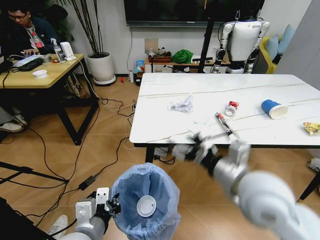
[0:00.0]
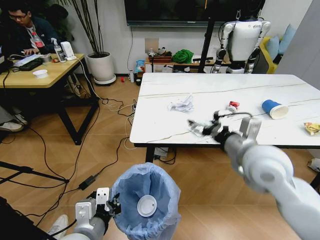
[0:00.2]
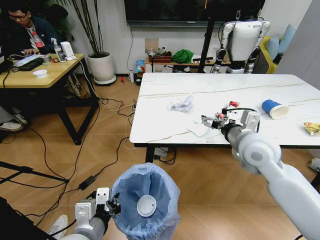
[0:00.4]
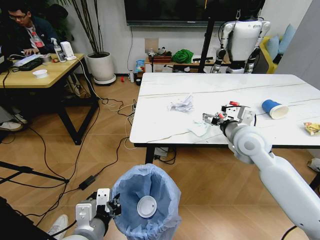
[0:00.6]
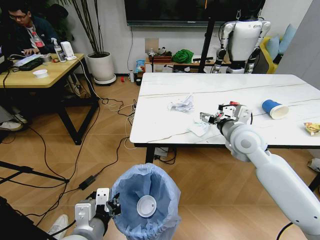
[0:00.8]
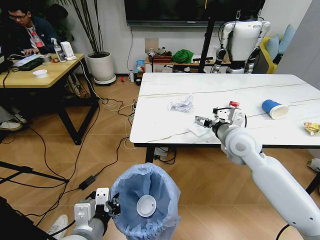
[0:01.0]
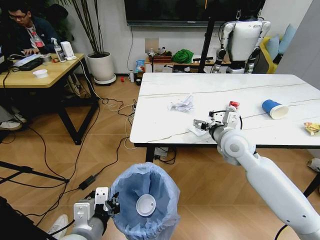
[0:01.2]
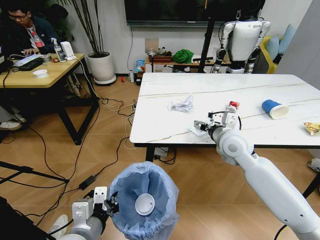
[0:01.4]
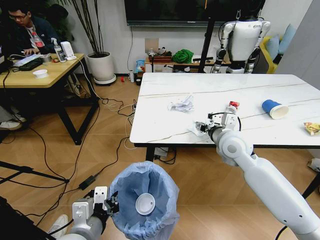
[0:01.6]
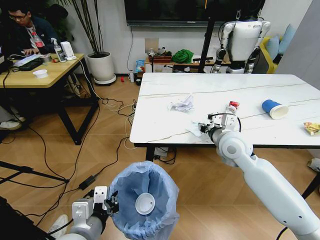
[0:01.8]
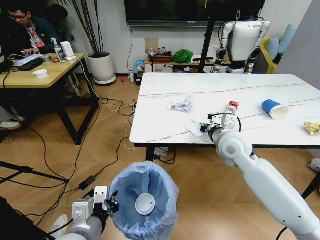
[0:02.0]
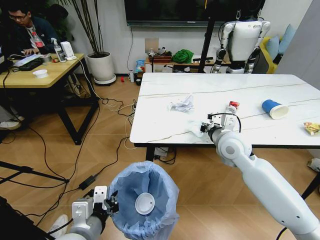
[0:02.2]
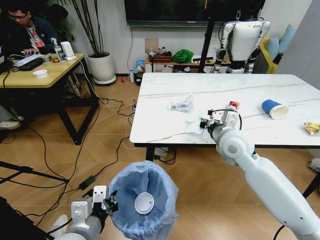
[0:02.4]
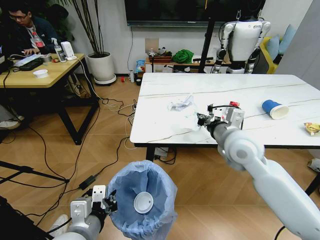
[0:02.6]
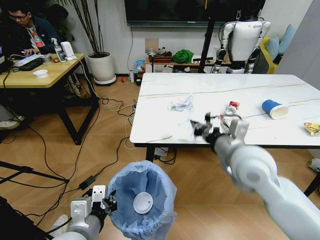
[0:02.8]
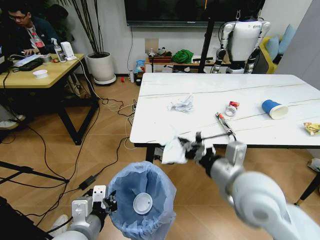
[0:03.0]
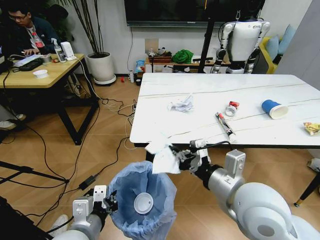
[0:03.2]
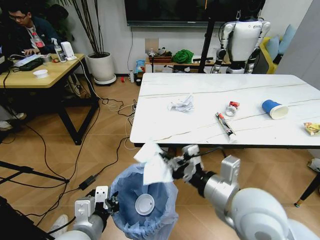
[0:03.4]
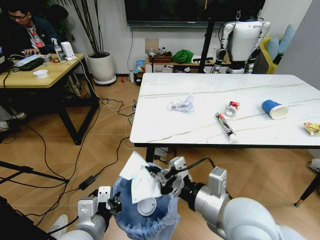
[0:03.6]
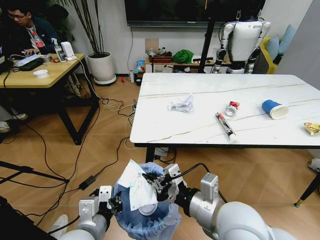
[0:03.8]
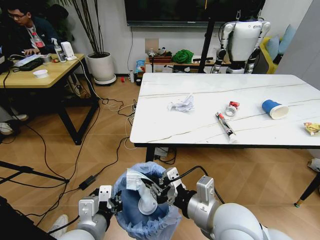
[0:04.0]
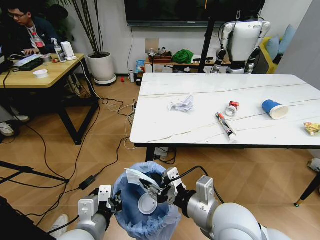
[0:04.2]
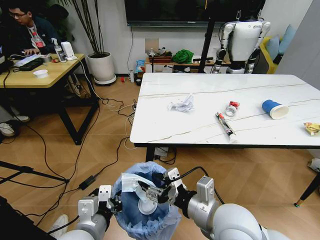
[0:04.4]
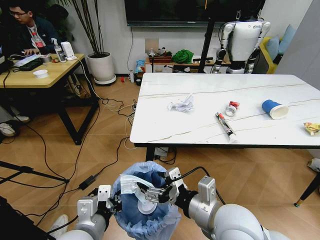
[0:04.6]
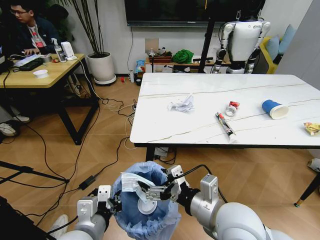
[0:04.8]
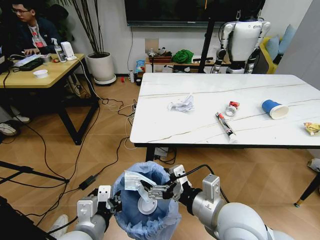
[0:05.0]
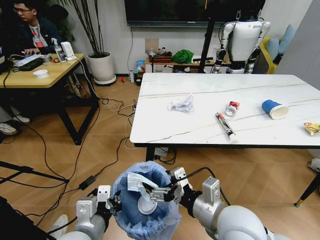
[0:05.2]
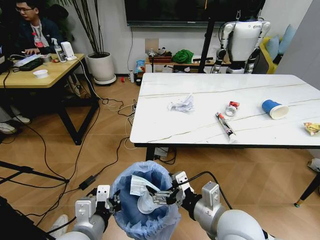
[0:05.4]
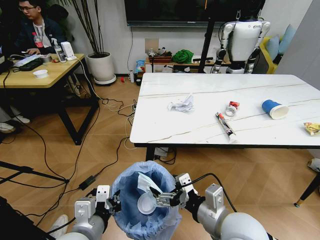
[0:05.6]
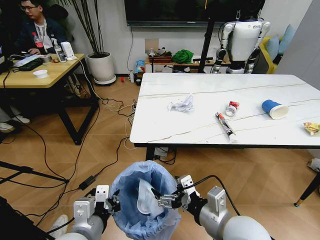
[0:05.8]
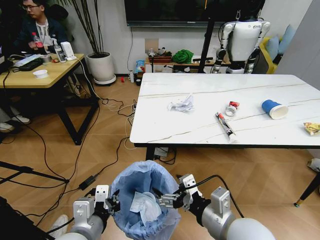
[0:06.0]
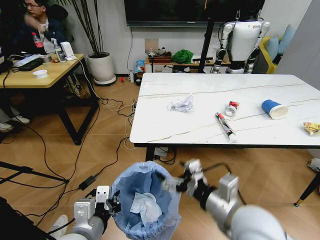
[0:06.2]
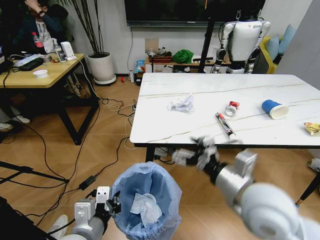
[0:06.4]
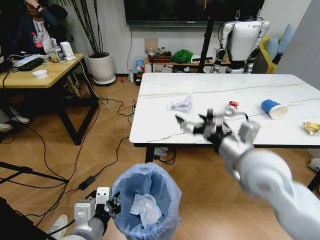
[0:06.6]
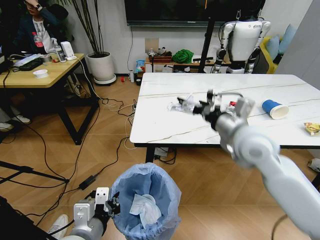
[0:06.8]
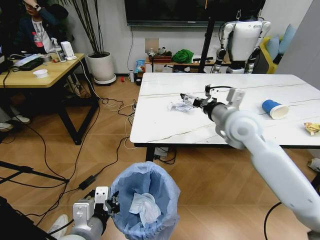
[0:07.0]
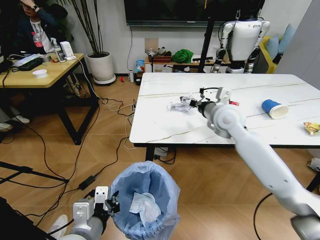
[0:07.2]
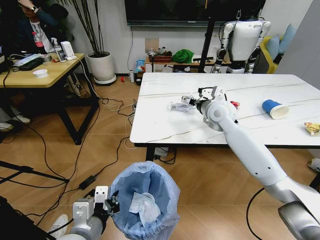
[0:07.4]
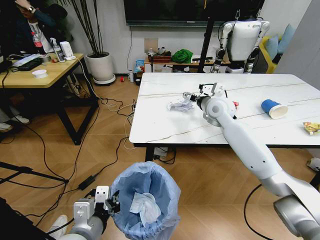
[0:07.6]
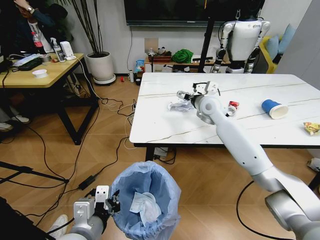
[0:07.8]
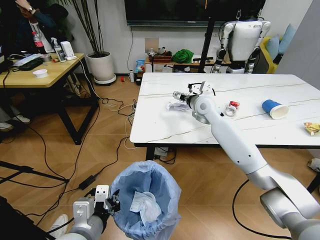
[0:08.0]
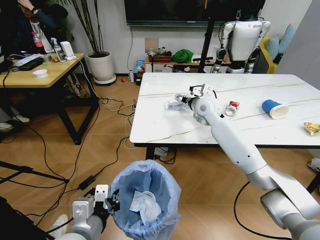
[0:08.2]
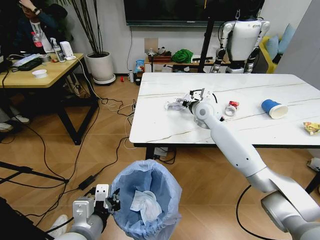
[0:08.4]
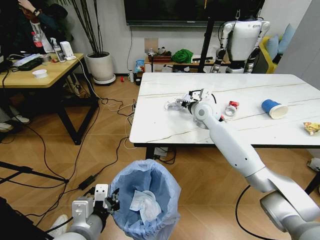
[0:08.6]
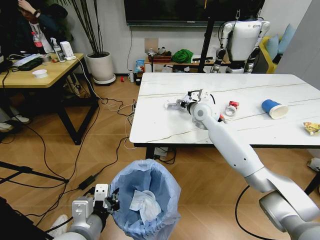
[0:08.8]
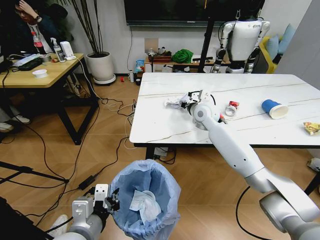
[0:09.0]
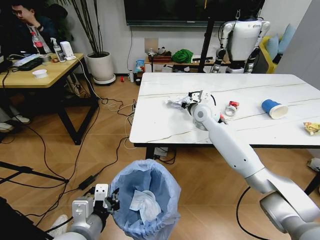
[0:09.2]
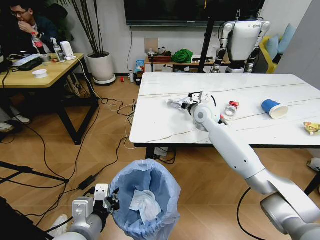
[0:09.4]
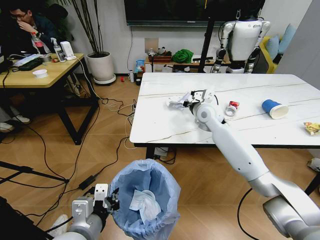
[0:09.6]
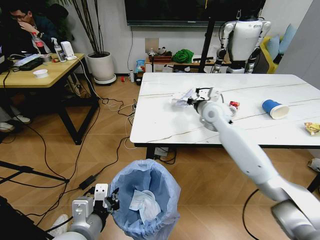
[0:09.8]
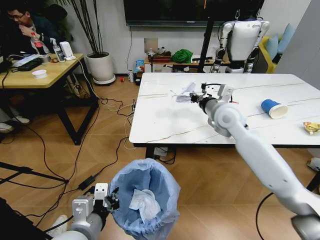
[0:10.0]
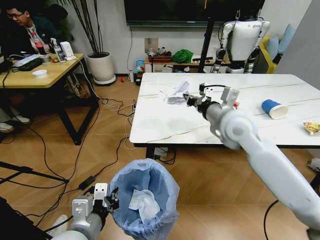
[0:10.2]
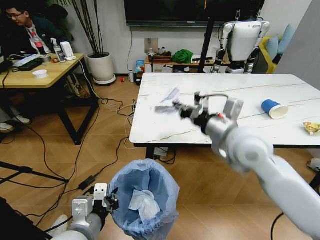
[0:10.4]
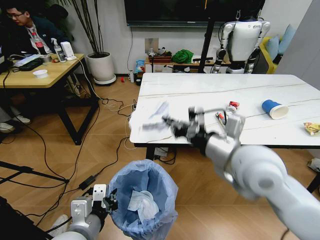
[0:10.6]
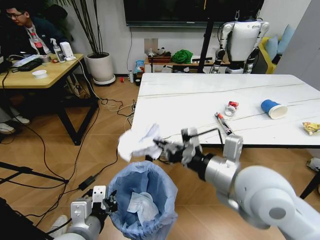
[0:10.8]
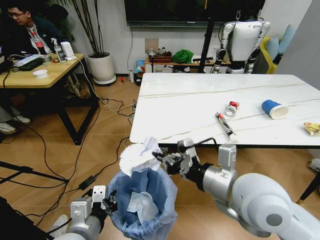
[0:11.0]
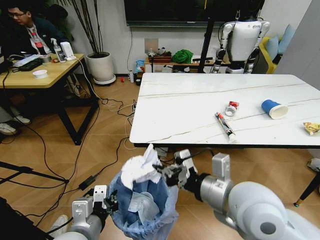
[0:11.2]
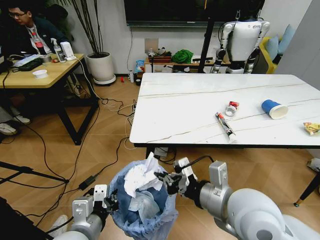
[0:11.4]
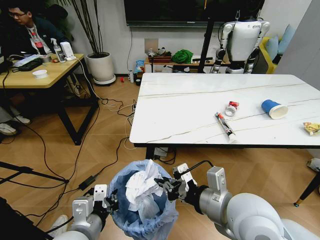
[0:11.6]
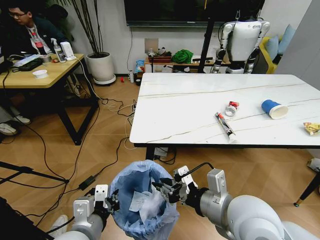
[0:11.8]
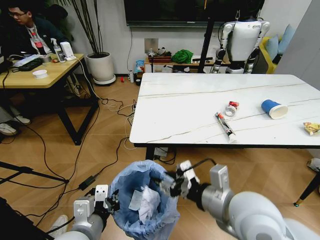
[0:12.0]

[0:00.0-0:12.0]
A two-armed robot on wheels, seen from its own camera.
Task of the whole recording: Pick up the trash bin and place the trash from the table into it.
0:00.0 to 0:01.6: The right gripper is displaced forward by roughly 15 cm.
0:01.6 to 0:03.0: The right gripper goes approximately 15 cm backward, and closes.
0:03.0 to 0:04.4: The right gripper heads downward, covering approximately 5 cm, and opens.
0:04.4 to 0:06.0: The right gripper opens.
0:06.0 to 0:07.6: The right gripper moves forward, about 35 cm.
0:07.6 to 0:09.0: The right gripper ends up about 5 cm from where it was, and closes.
0:09.0 to 0:10.4: The right gripper travels backward and upward by about 25 cm, and closes its fingers.
0:10.4 to 0:12.0: The right gripper moves backward and downward, roughly 15 cm, and opens its fingers.

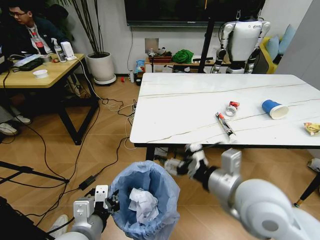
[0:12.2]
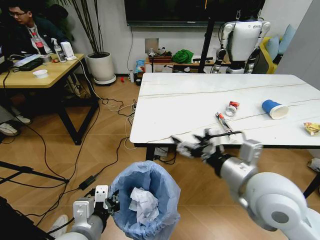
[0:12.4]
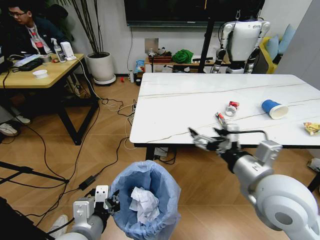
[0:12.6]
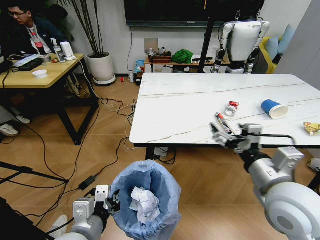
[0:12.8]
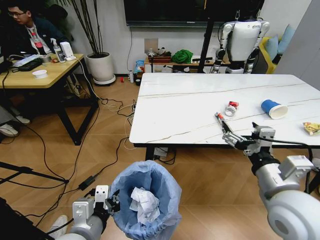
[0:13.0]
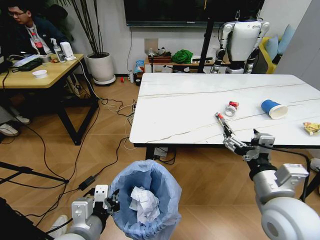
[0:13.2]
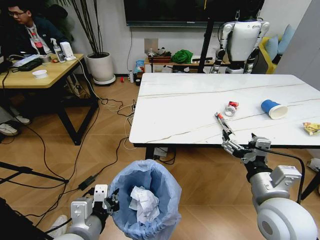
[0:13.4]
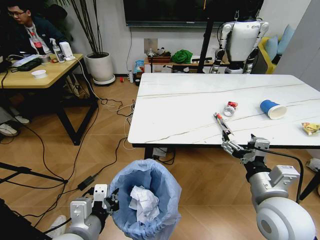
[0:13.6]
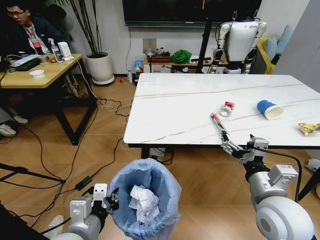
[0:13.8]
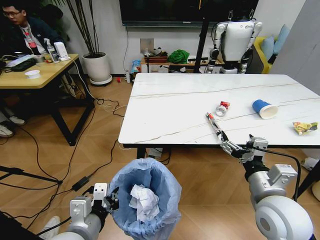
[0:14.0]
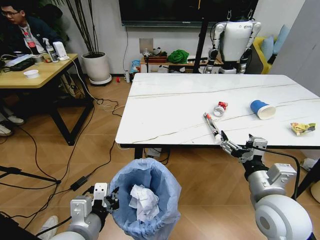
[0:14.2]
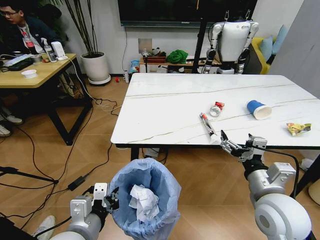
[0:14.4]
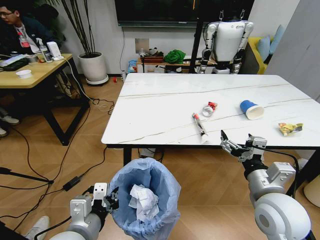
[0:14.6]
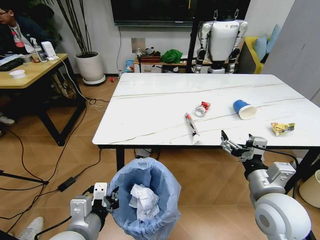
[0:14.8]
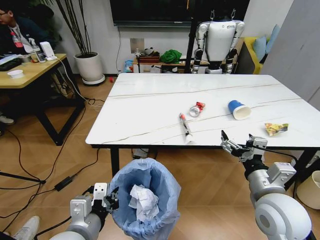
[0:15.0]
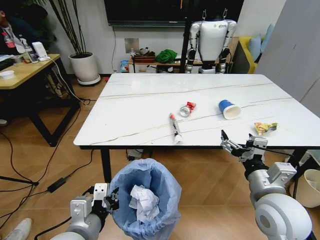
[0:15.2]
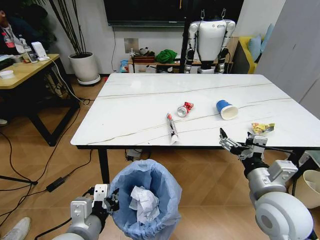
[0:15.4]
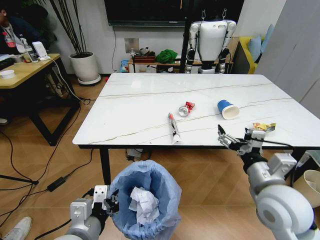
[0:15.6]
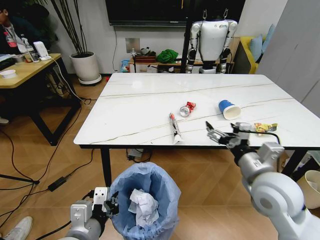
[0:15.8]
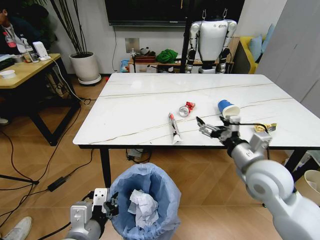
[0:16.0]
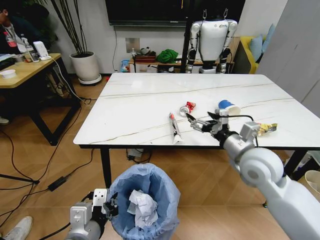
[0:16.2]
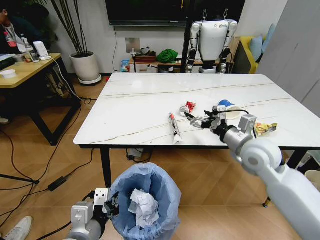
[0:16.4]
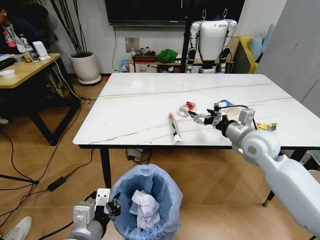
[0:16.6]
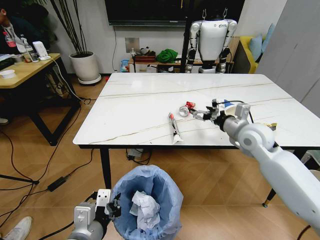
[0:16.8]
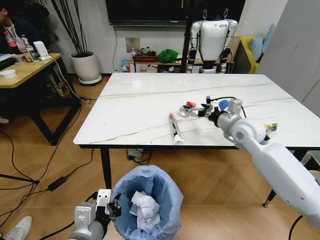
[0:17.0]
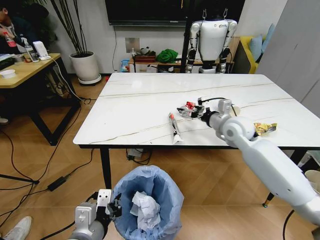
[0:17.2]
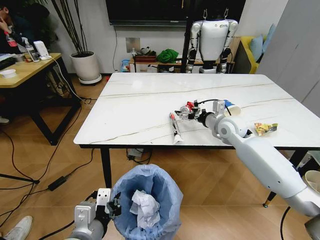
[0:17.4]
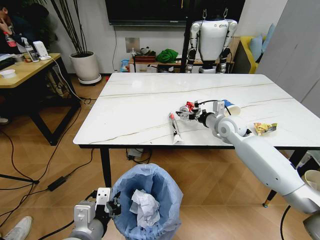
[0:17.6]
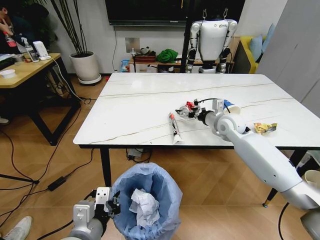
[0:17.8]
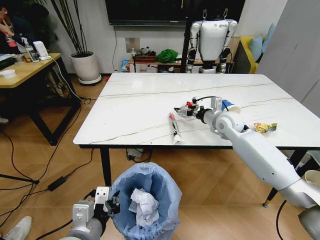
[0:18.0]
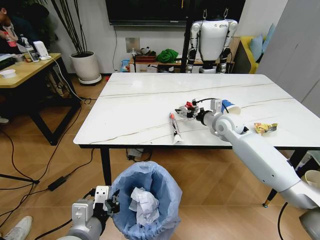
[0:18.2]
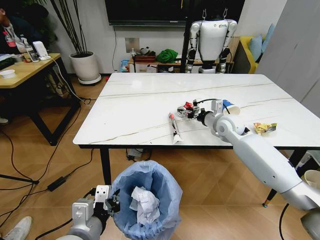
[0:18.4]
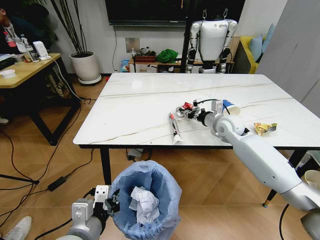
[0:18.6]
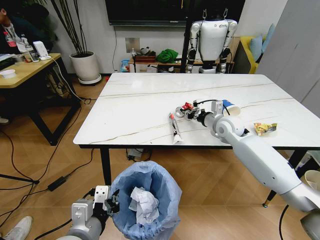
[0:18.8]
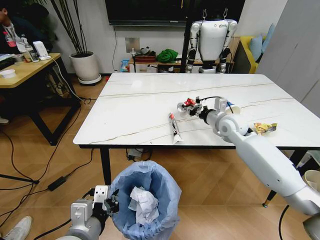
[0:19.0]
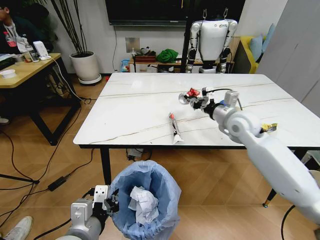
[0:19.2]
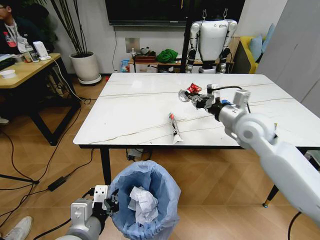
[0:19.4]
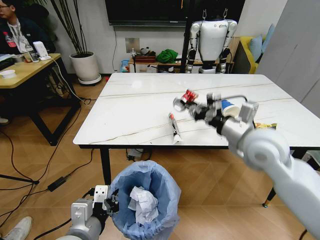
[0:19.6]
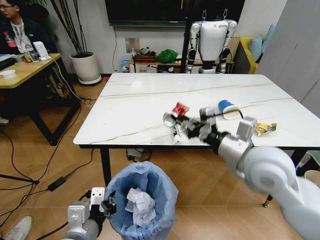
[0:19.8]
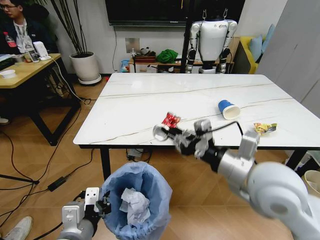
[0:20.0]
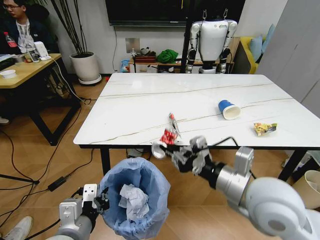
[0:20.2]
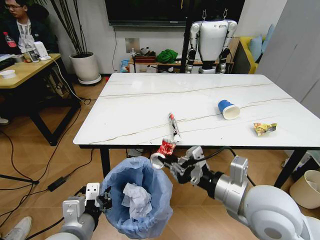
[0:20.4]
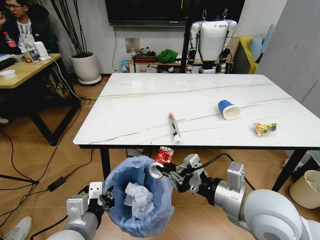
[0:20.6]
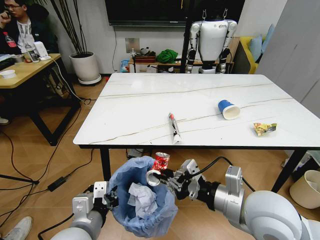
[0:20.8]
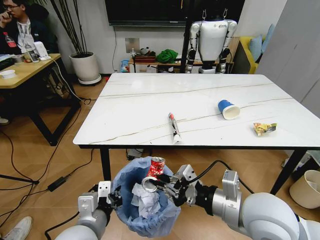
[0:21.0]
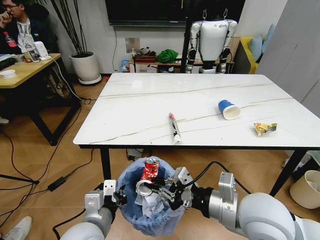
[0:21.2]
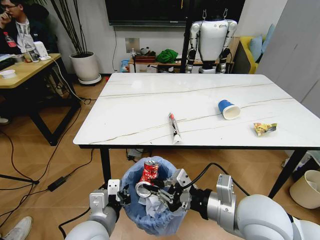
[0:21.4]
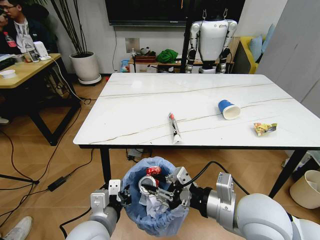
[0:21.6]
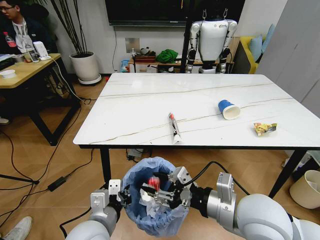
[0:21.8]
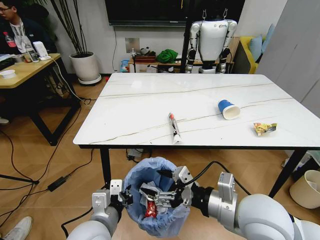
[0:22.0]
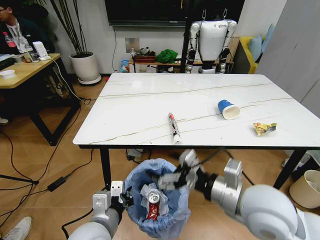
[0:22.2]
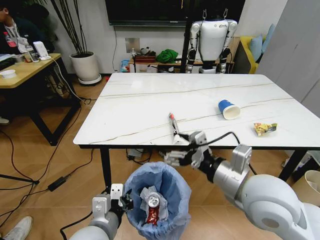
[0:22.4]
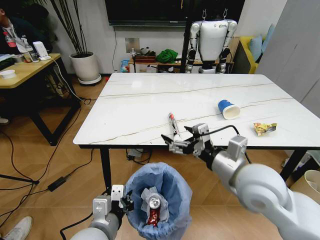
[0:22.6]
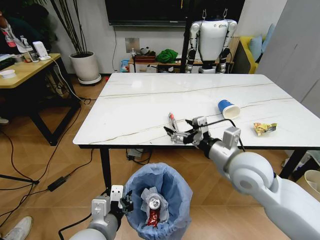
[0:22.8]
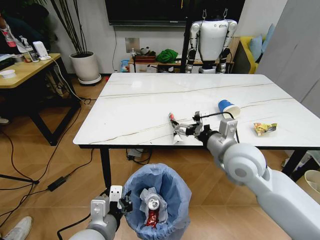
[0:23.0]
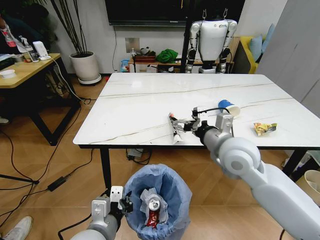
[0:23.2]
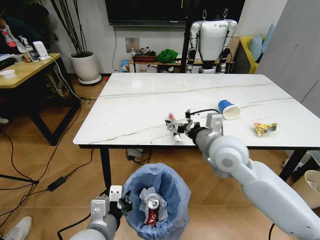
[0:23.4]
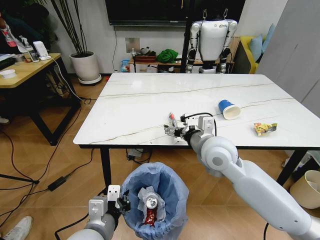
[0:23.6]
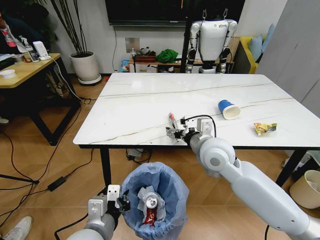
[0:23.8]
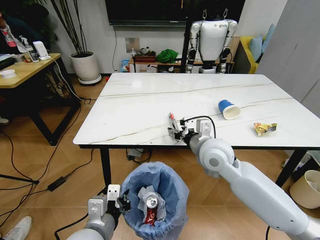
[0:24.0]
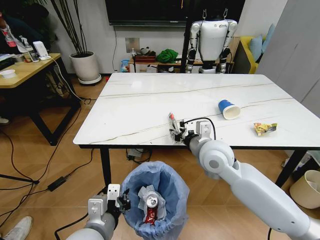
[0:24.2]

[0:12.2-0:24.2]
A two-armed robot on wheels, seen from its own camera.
Task of the whole recording: Pick up the trash bin and place the trash from the table into it.
0:12.2 to 0:13.8: The right gripper heads to the right and downward, covering roughly 10 cm.
0:15.2 to 0:16.6: The right gripper moves forward, approximately 15 cm.
0:16.6 to 0:18.2: The right gripper heads forward, covering roughly 15 cm.
0:18.2 to 0:19.8: The right gripper shifts about 25 cm backward and upward, and closes.
0:19.8 to 0:21.2: The right gripper heads backward and downward, covering approximately 10 cm.
0:21.2 to 0:22.6: The right gripper shifts roughly 5 cm forward, and opens its fingers.
0:22.6 to 0:24.2: The right gripper goes roughly 10 cm forward and to the left, and closes.
